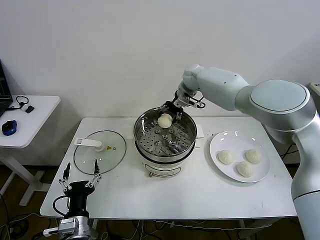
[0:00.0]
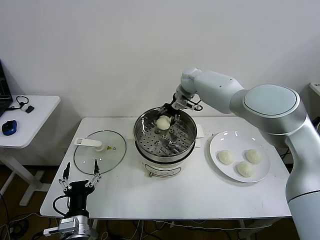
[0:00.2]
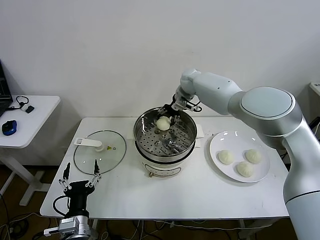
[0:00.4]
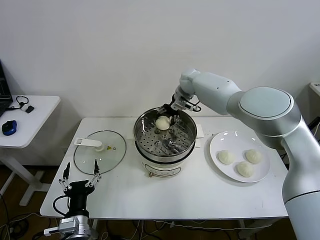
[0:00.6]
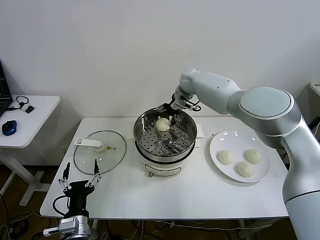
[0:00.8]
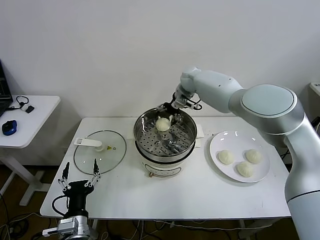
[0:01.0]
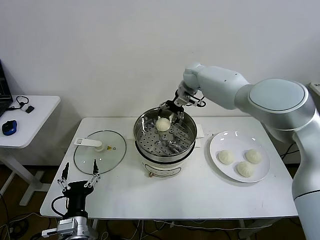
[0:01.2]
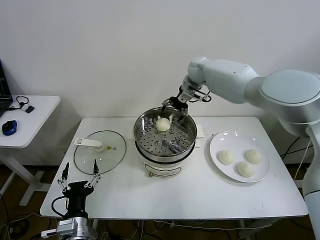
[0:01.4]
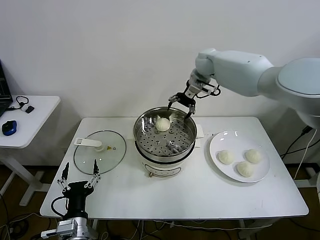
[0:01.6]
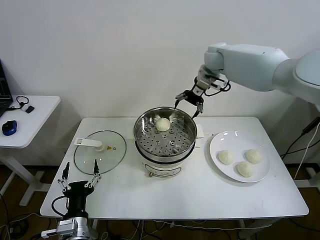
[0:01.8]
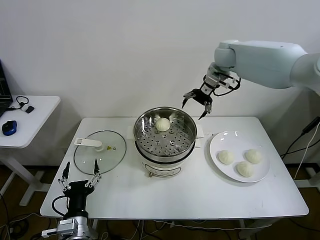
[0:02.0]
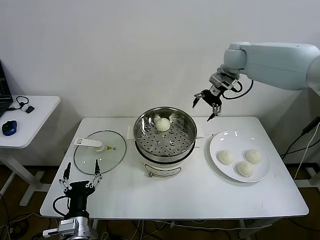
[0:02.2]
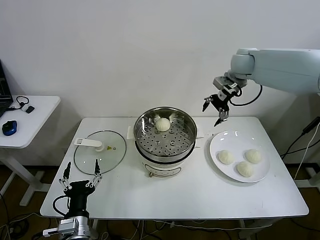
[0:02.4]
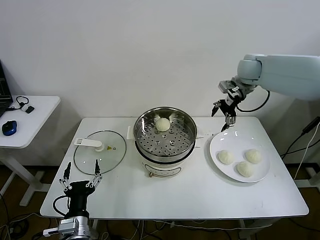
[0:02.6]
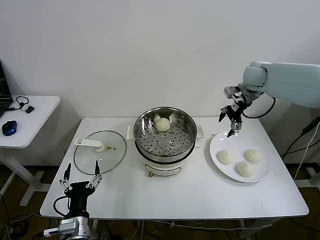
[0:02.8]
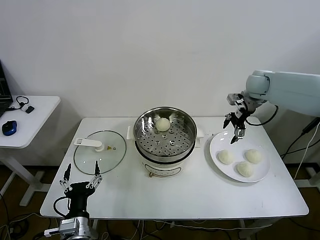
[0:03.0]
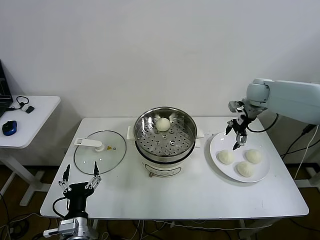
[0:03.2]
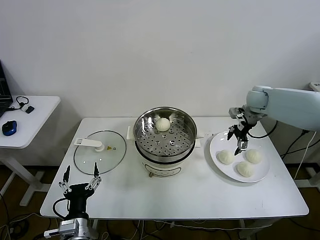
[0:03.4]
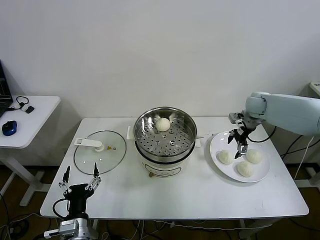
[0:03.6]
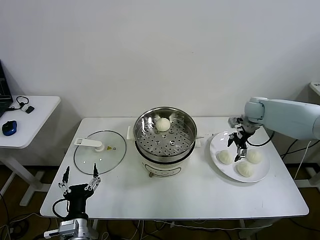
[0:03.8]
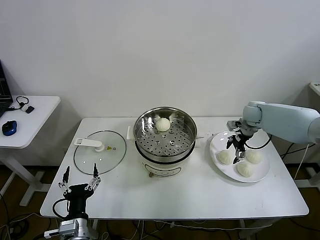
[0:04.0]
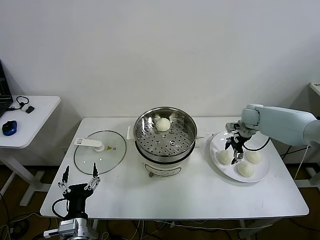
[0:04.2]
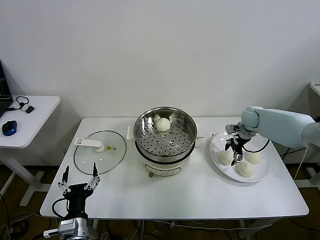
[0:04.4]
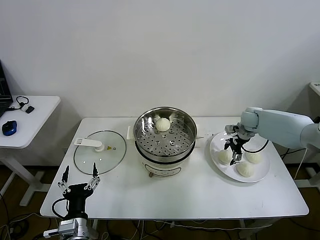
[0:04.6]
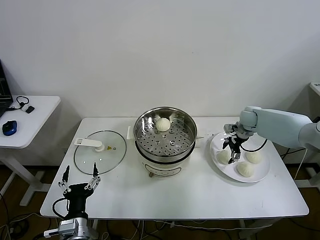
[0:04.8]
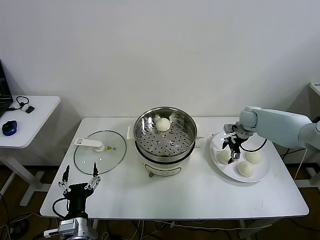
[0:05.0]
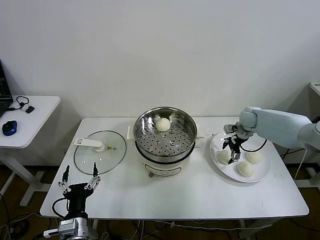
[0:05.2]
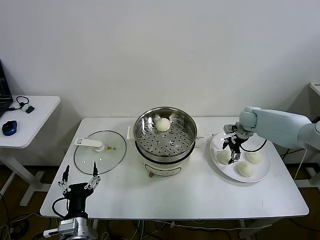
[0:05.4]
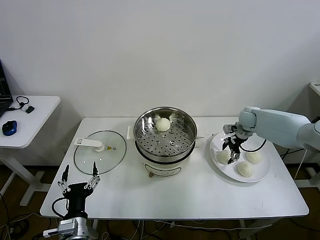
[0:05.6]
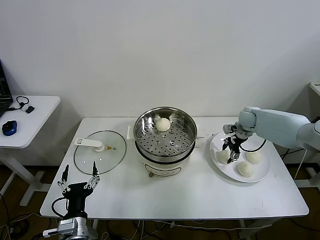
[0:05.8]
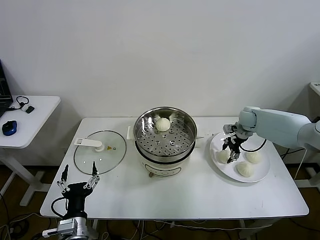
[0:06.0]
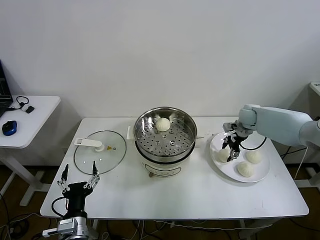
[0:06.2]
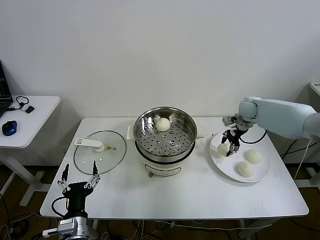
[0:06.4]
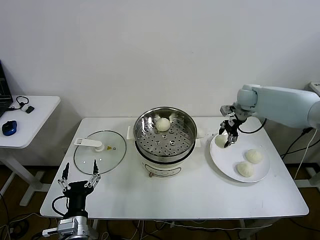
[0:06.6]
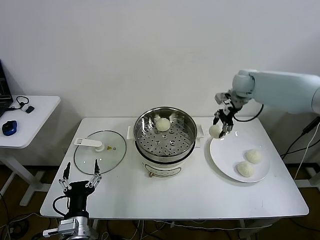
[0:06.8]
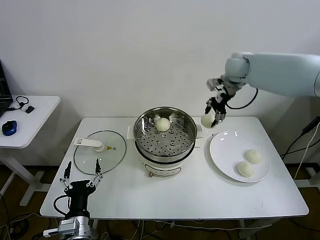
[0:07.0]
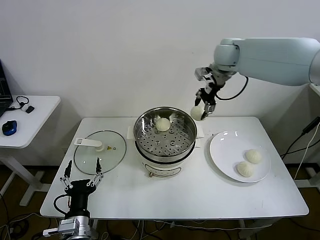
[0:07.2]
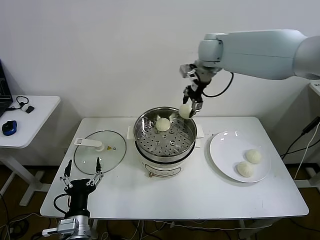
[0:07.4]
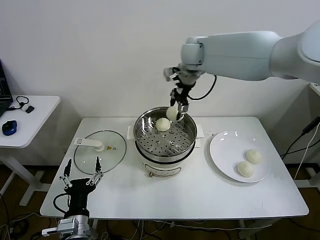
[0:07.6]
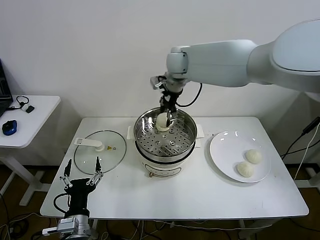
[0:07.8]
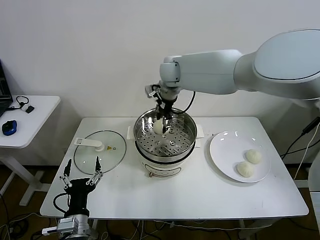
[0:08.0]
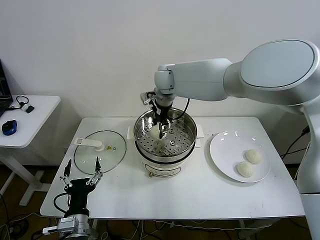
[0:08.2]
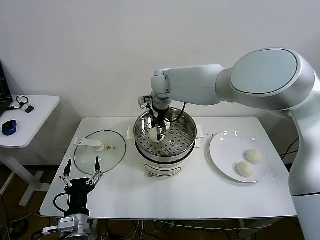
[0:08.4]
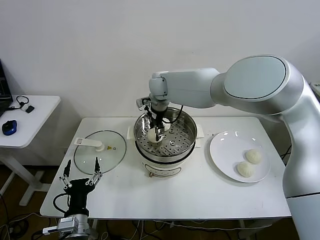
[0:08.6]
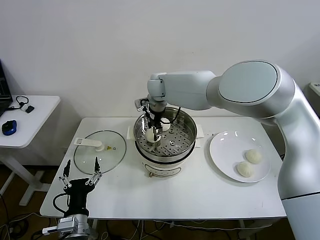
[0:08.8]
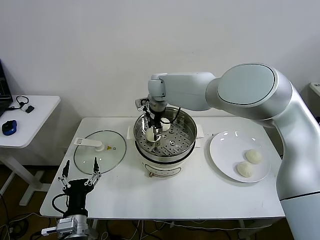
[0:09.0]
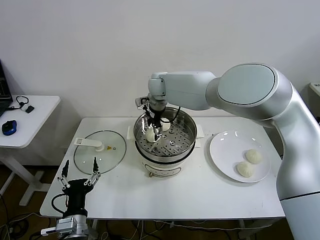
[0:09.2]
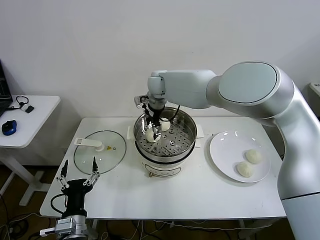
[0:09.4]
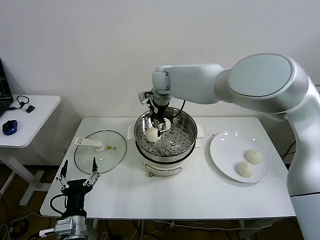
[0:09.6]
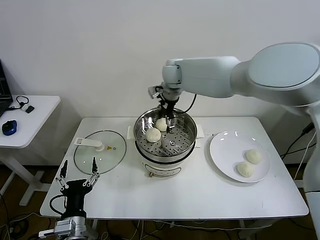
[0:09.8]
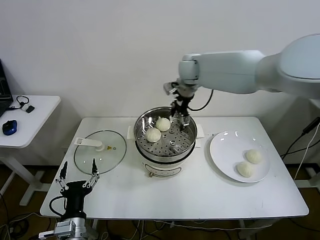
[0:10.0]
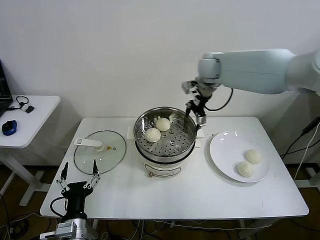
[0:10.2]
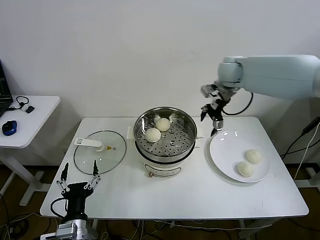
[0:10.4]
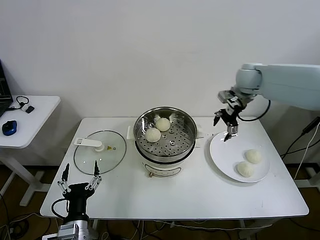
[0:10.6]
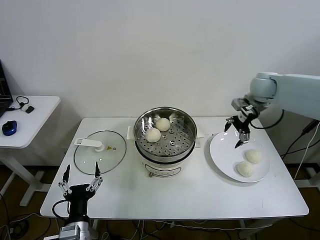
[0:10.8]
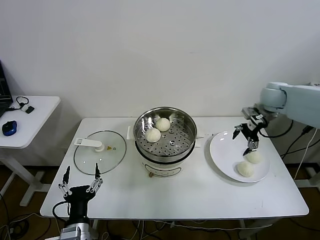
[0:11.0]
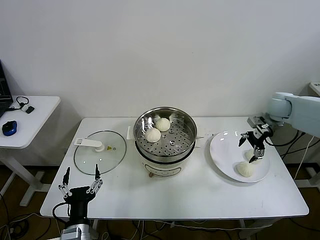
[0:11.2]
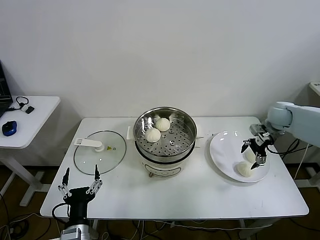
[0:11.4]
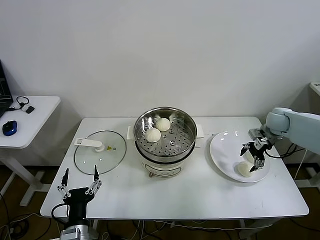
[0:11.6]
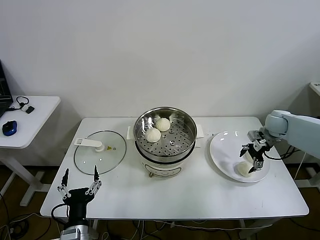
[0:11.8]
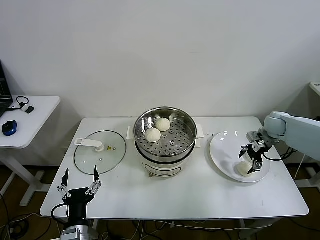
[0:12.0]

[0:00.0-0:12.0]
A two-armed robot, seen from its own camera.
Step, 0:01.4 to 0:05.8: Grasp the baozi in the plate with right gripper.
Step, 0:06.0 to 0:09.2: Place the baozi on the steamer with right gripper.
0:00.0 to 0:01.6: The right gripper heads upward and to the right, covering some 10 cm, and opens its fingers.
0:01.6 to 0:03.0: The right gripper goes about 20 cm to the right, downward and backward.
0:03.0 to 0:04.4: The right gripper shifts about 15 cm downward.
0:04.4 to 0:06.0: The right gripper closes its fingers.
0:06.0 to 0:07.6: The right gripper goes roughly 40 cm to the left and upward.
0:07.6 to 0:09.0: The right gripper goes roughly 15 cm downward and to the left.
0:09.0 to 0:10.4: The right gripper shifts some 25 cm to the right, and opens.
0:10.4 to 0:12.0: The right gripper heads to the right and downward, covering some 30 cm.

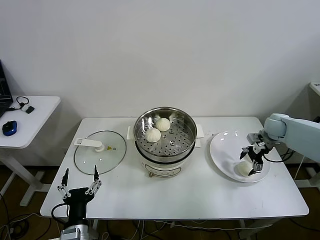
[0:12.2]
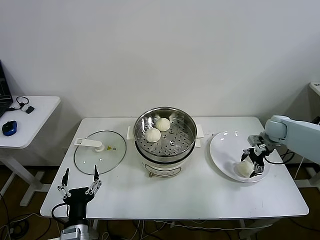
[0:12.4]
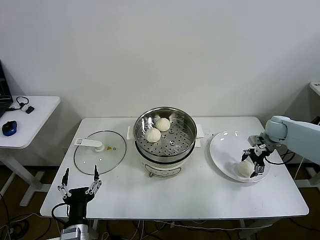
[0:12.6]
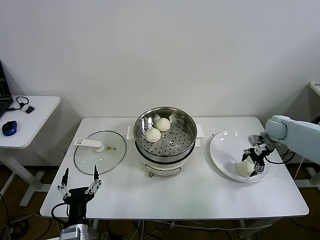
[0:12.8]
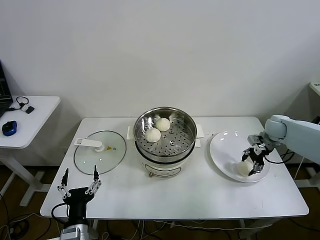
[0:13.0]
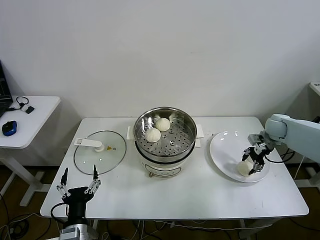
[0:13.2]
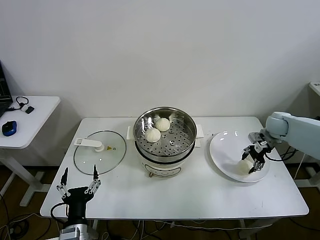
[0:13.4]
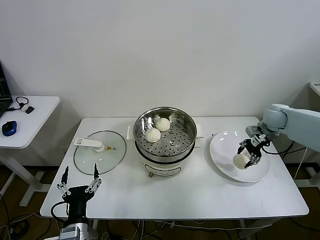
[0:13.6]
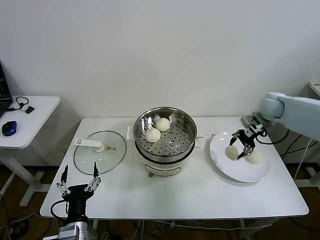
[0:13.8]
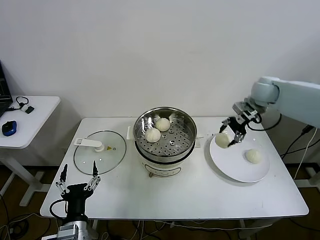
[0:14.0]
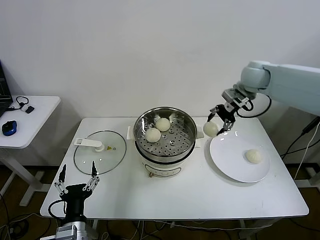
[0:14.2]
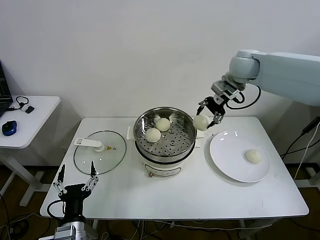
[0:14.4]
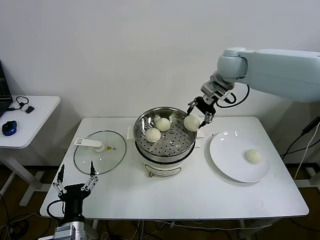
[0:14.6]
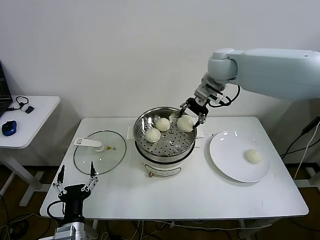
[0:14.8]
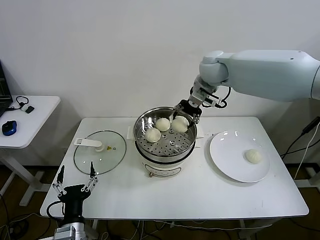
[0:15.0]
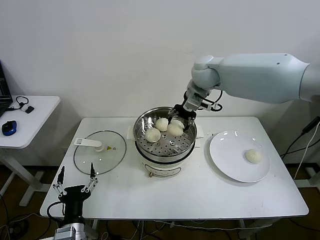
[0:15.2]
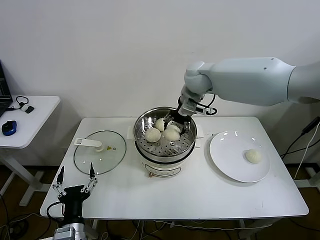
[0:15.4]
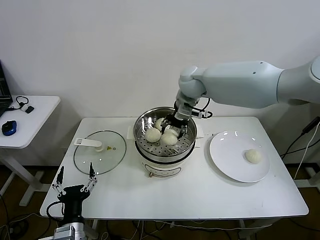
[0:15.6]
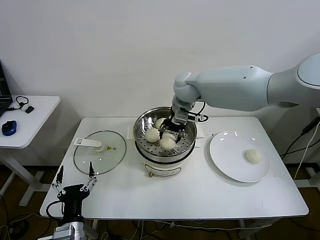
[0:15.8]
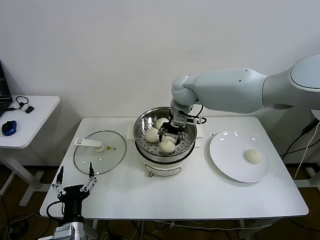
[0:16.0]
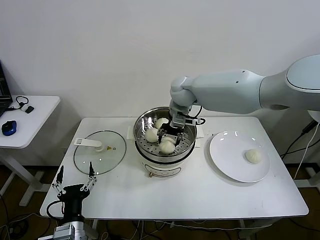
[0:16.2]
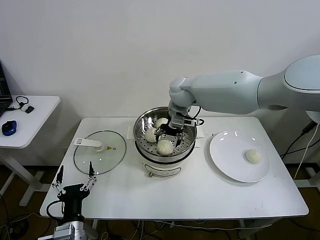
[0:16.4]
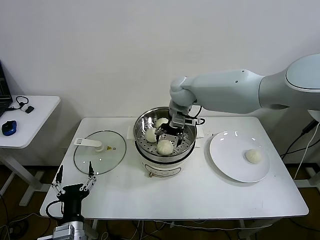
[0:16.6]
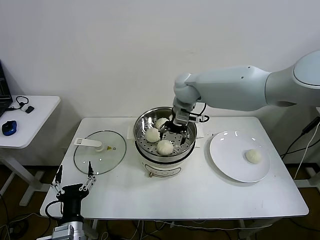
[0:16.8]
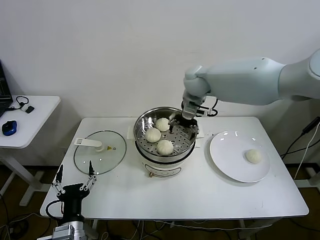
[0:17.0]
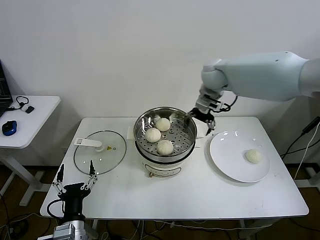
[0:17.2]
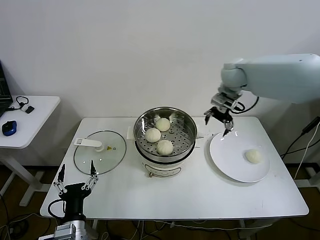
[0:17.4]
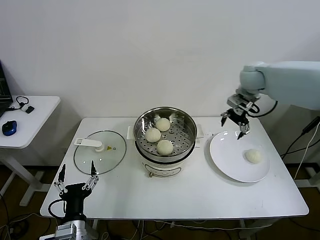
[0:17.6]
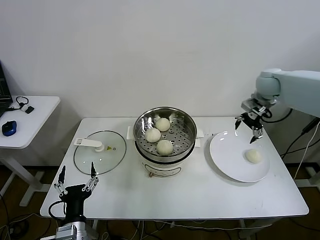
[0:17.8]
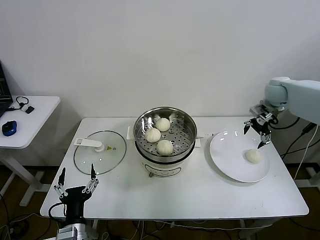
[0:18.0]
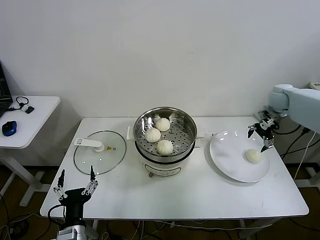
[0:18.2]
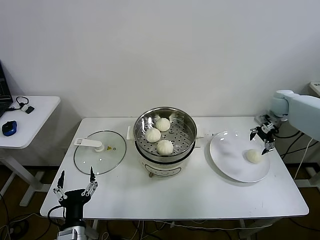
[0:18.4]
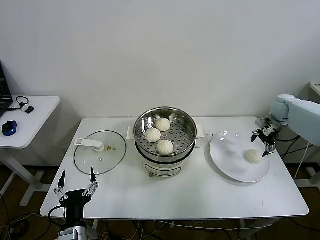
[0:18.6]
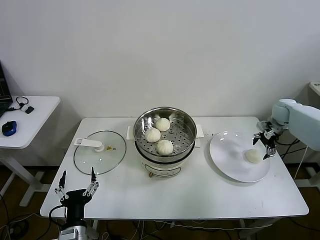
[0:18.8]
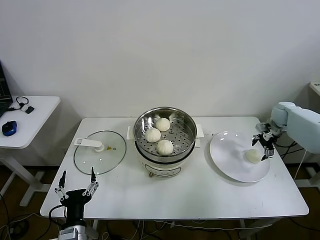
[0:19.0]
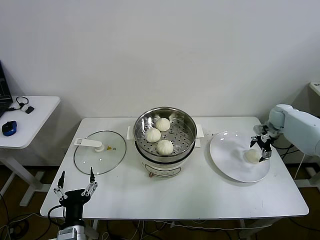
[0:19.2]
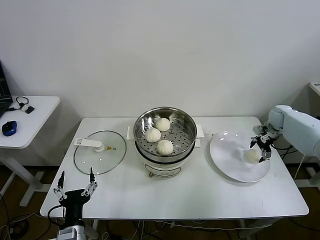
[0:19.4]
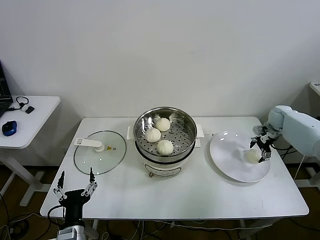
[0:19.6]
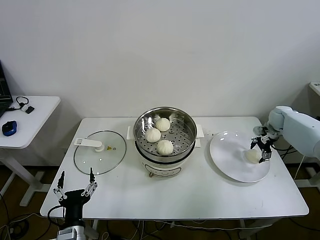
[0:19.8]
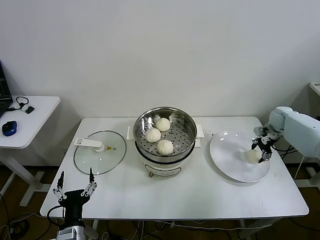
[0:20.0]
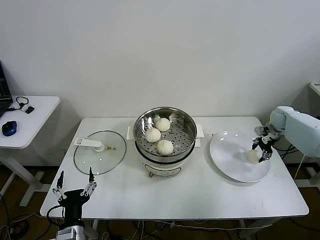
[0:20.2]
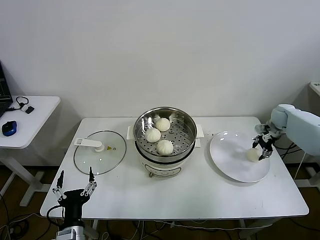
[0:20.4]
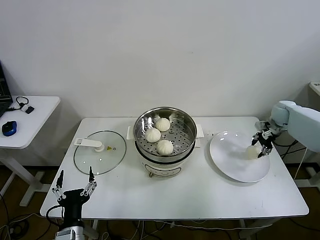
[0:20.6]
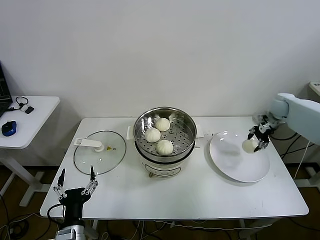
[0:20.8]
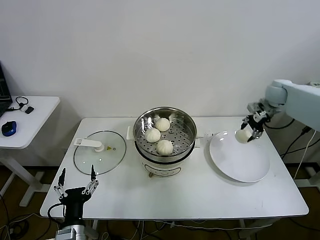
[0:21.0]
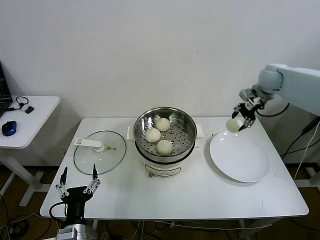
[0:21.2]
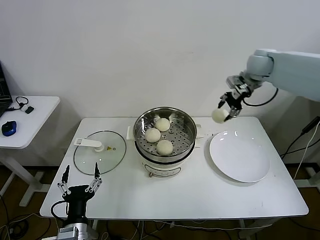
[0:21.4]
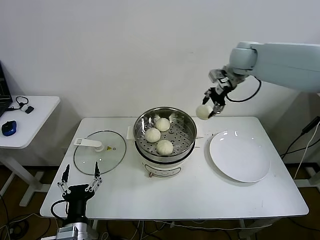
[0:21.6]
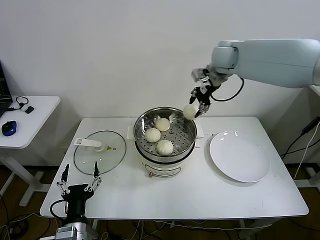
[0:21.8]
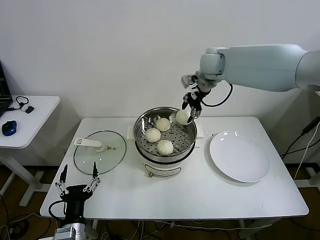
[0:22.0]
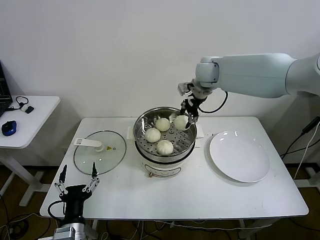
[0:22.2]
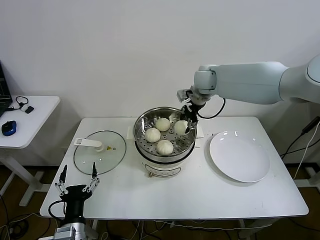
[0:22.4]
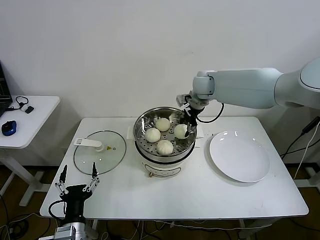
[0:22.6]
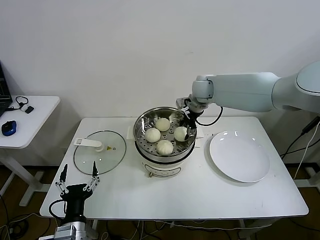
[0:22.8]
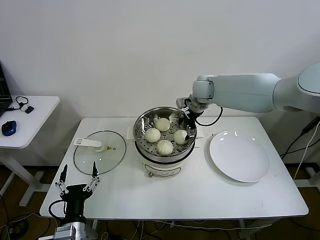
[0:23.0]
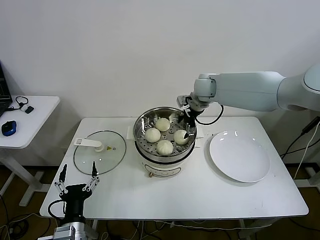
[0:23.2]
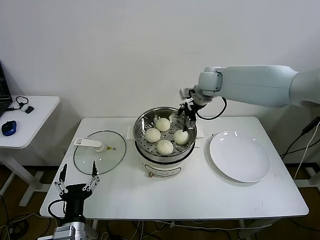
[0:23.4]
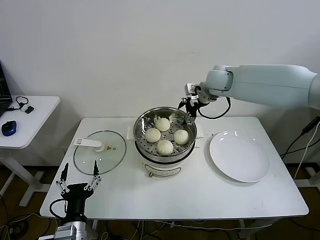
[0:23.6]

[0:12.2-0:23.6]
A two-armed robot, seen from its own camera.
Step, 0:13.4 to 0:16.8: Place the baozi on the steamer with right gripper.
Step, 0:17.0 to 0:20.2: Grasp the baozi in the plate with right gripper.
Step, 0:20.4 to 0:23.2: Place the baozi on the steamer with right gripper.
0:12.2 to 0:13.6: The right gripper moves roughly 5 cm, and closes up.
0:13.6 to 0:15.0: The right gripper goes roughly 30 cm to the left and upward.
0:15.0 to 0:16.4: The right gripper heads to the left and downward, covering about 10 cm, and opens.
0:16.4 to 0:17.8: The right gripper moves to the right, roughly 30 cm.
0:17.8 to 0:19.4: The right gripper heads downward and to the right, covering roughly 20 cm.
0:19.4 to 0:20.8: The right gripper moves upward, about 5 cm, and closes its fingers.
0:20.8 to 0:22.2: The right gripper is displaced to the left and upward by roughly 35 cm.
0:22.2 to 0:23.6: The right gripper opens up.
